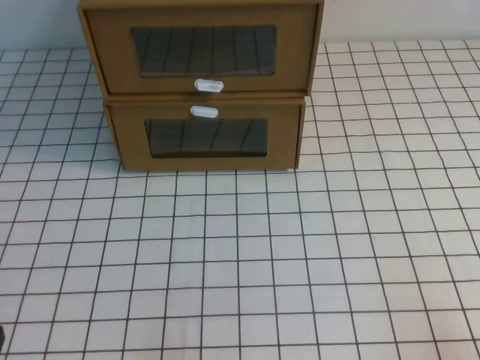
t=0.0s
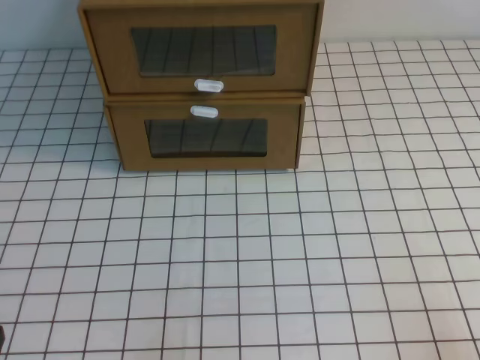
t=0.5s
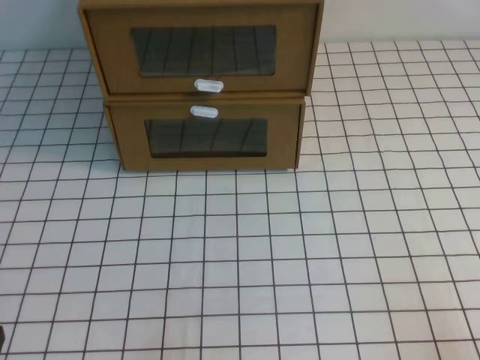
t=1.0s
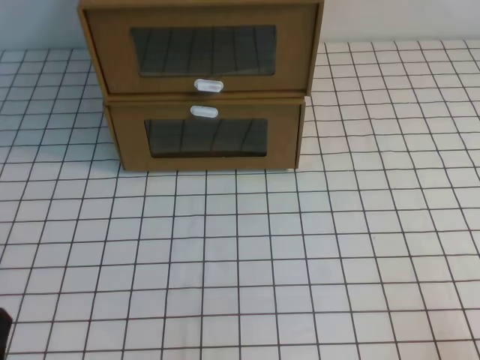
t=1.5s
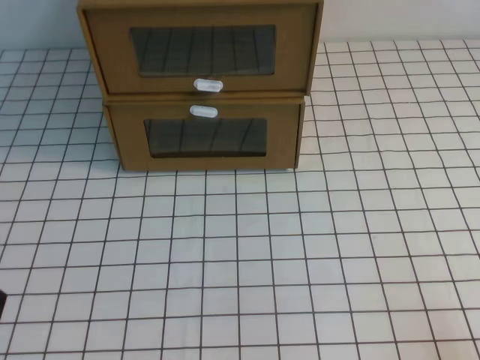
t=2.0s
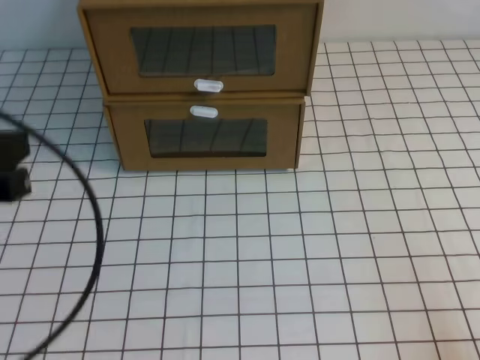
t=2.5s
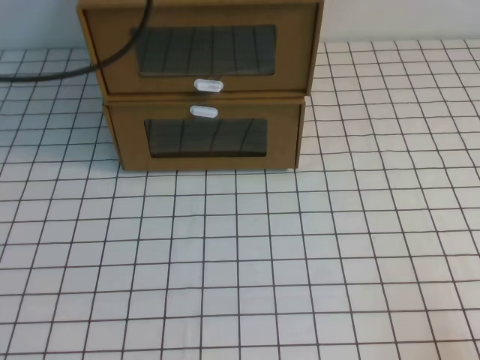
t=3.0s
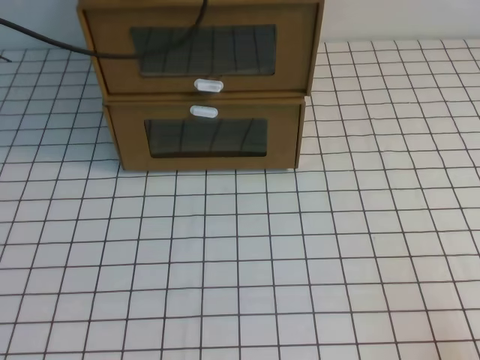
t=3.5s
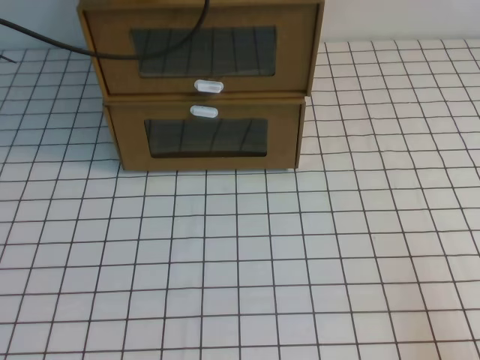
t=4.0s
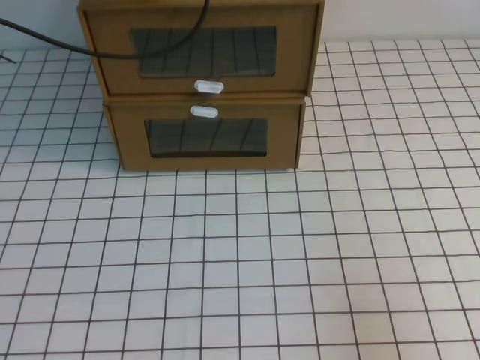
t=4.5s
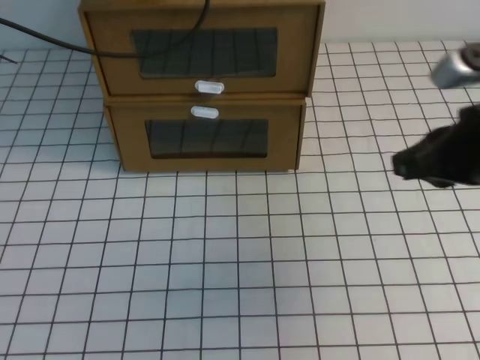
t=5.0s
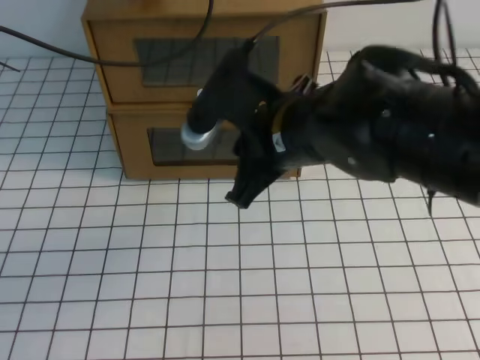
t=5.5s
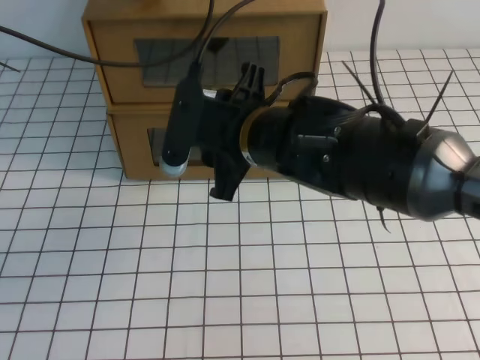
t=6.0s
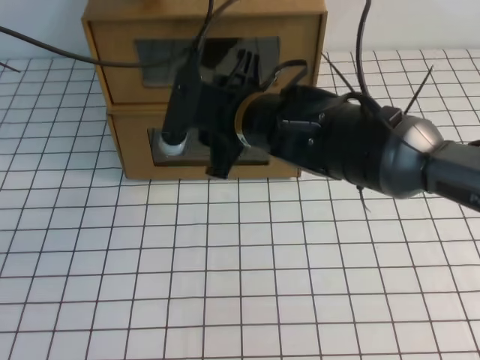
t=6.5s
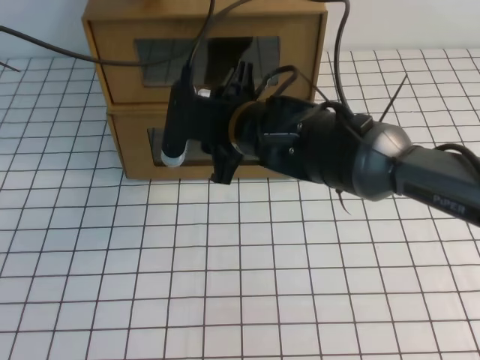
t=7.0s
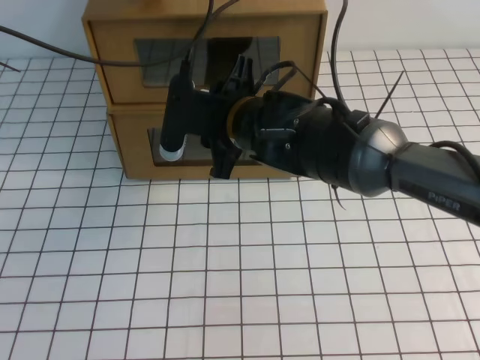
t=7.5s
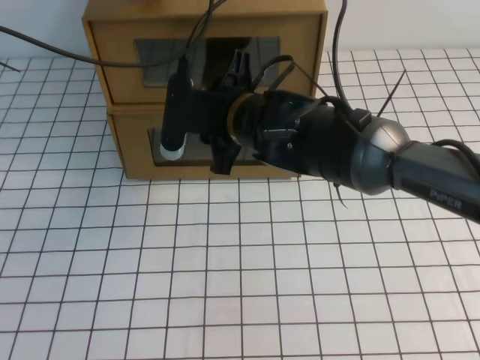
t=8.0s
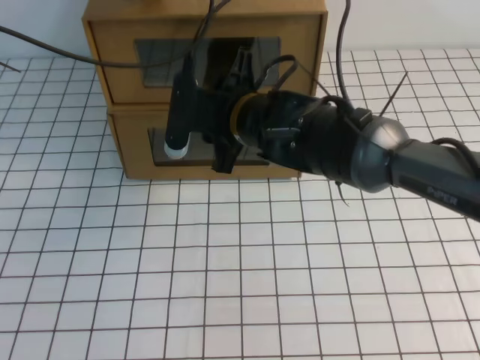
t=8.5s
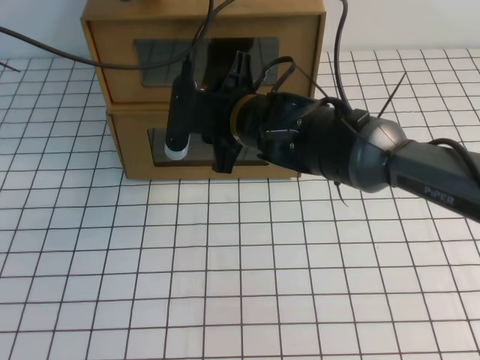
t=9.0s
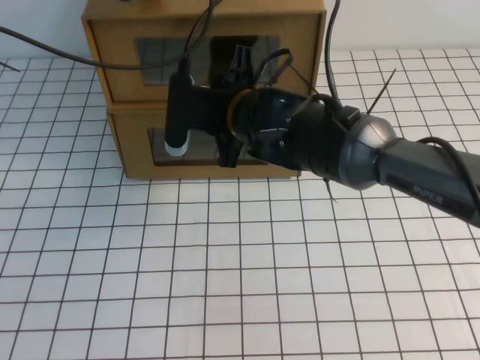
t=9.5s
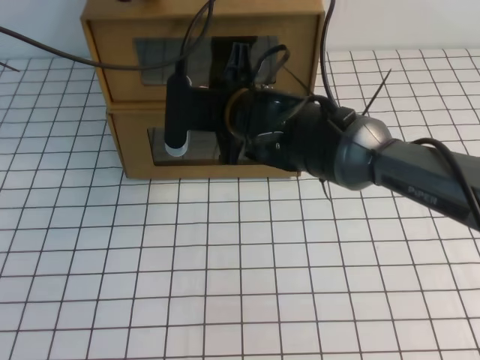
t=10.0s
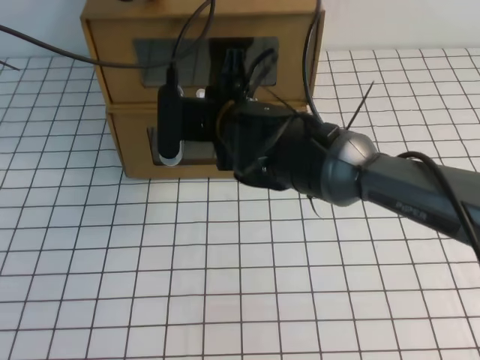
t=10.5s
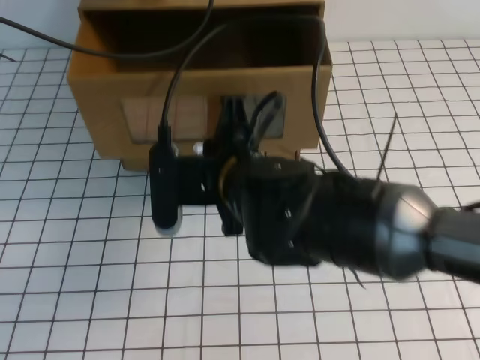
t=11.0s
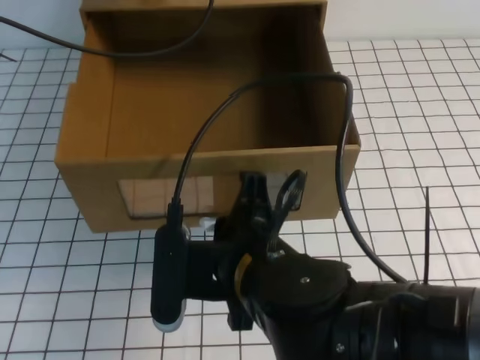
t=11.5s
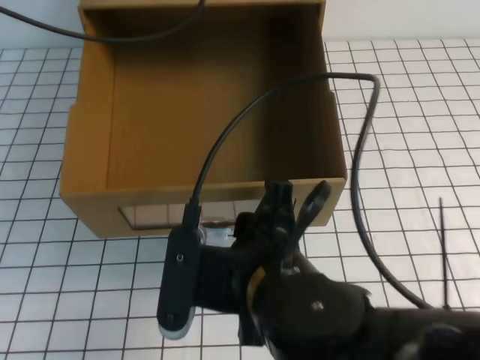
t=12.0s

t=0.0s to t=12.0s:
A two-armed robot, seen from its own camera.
Task of the whole recording: open the shoebox on the white tablecloth.
t=2.0s to t=4.0s: The left gripper goes roughly 40 cm forward and upward.
t=4.0s to t=6.0s: The right gripper moves to the left, forward and upward, roughly 40 cm, and opens its fingers.
t=6.0s to t=8.0s: The right gripper goes about 5 cm forward.
t=8.0s to t=10.0s: The right gripper closes up.
t=10.0s to t=12.0s: The right gripper heads backward, covering some 20 cm, and opens up.

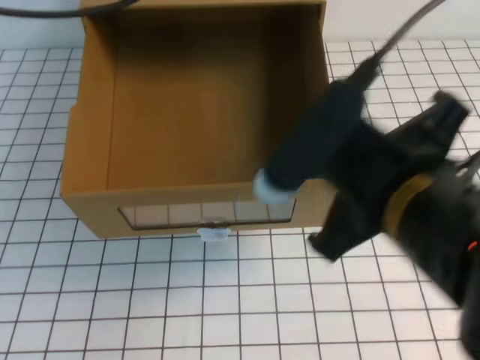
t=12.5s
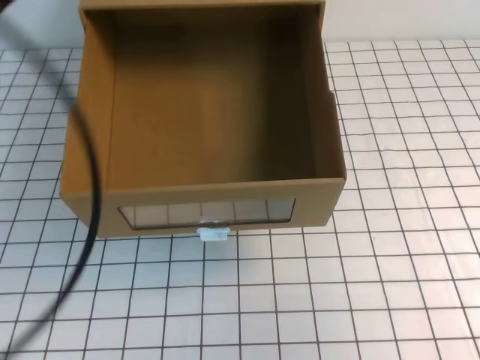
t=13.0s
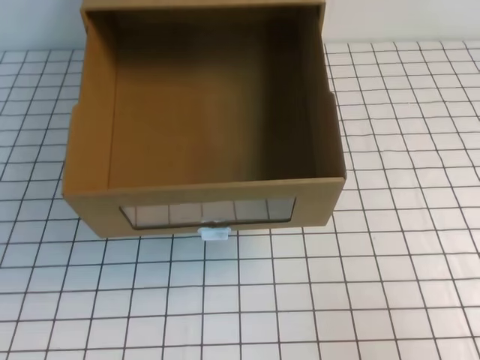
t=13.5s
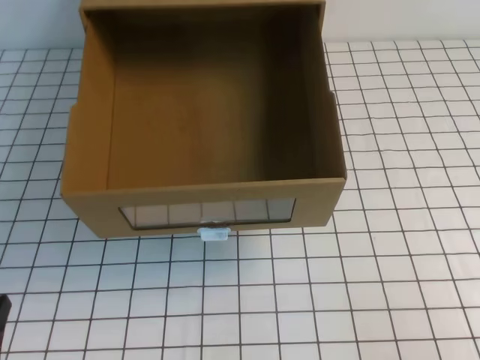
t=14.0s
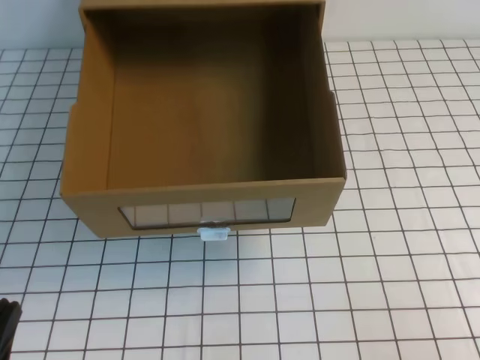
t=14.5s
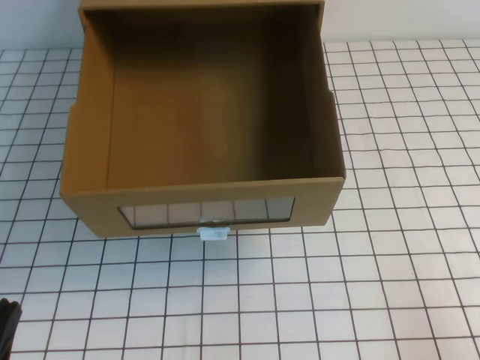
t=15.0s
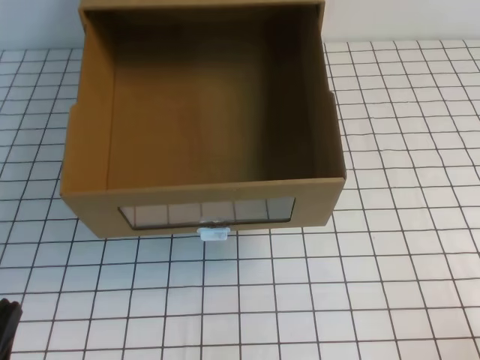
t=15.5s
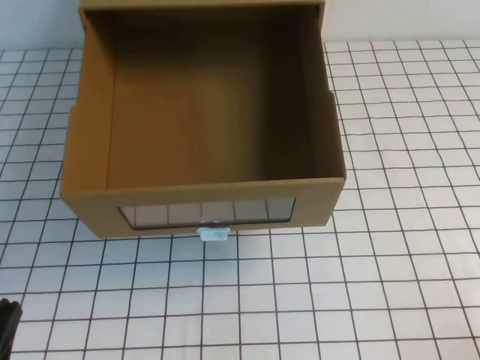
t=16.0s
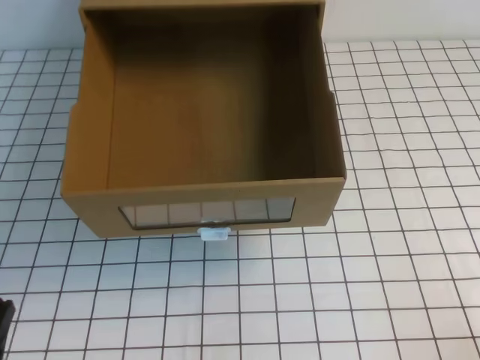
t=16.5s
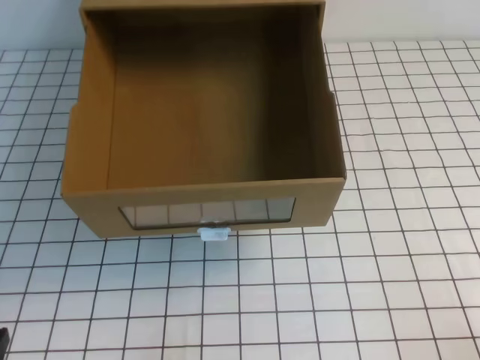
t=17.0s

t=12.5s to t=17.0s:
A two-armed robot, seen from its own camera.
Task of the whole recording: open the shoebox on the white tablecloth.
Step, t=12.5s to t=17.0s: Open the shoe box.
t=12.5s to t=14.5s: The left gripper is displaced downward and backward by about 40 cm, while the right gripper travels to the right by roughly 25 cm.

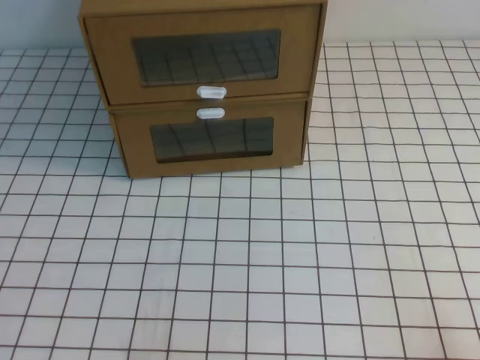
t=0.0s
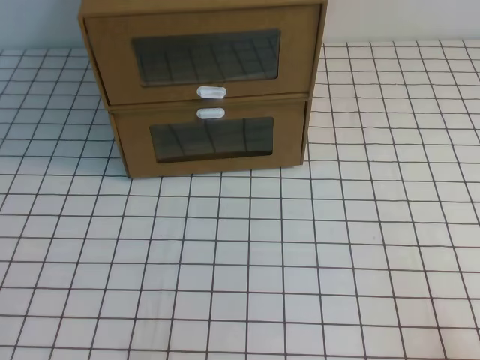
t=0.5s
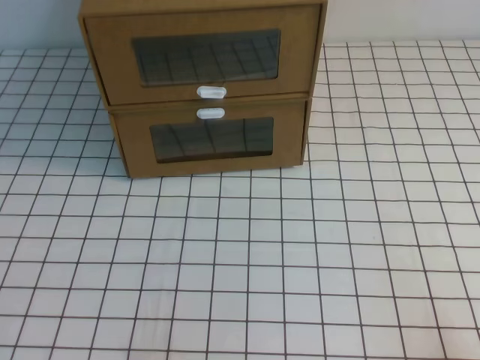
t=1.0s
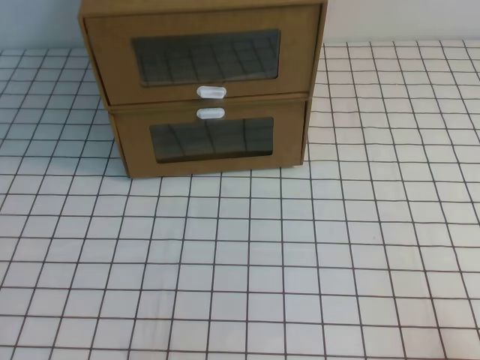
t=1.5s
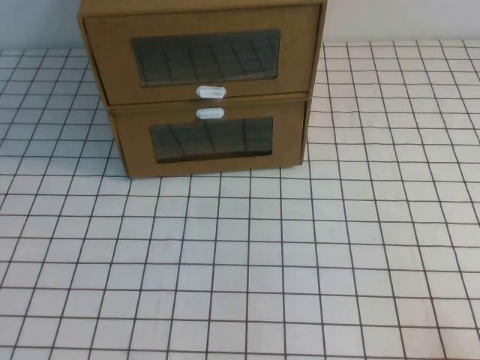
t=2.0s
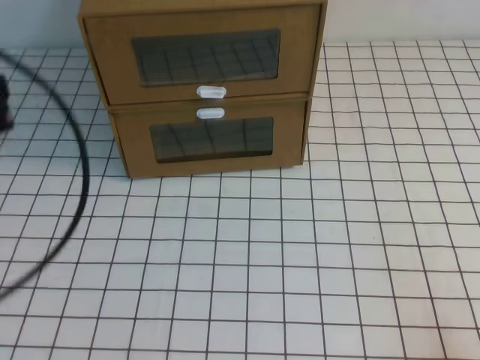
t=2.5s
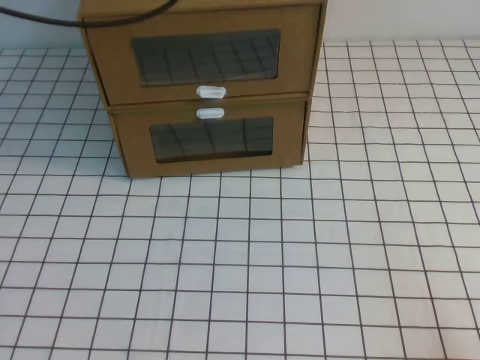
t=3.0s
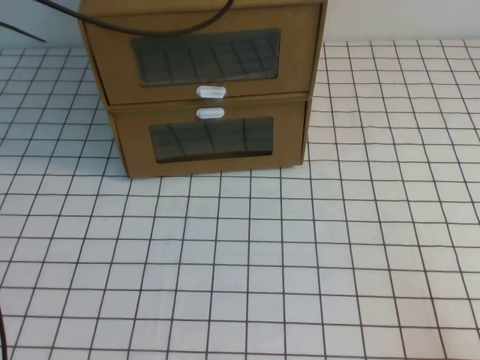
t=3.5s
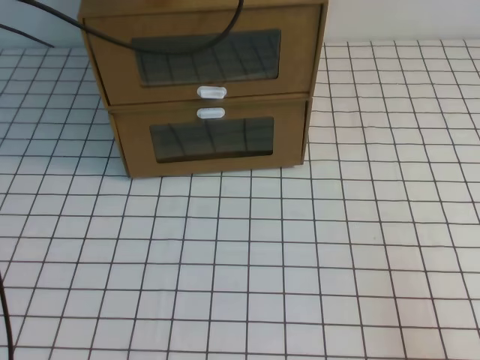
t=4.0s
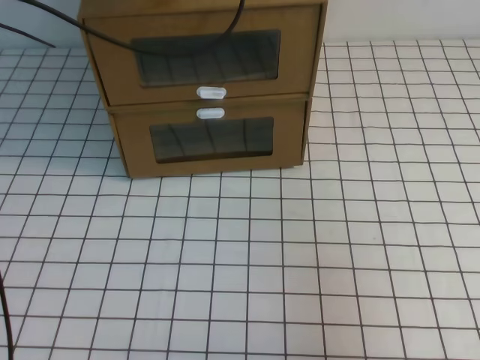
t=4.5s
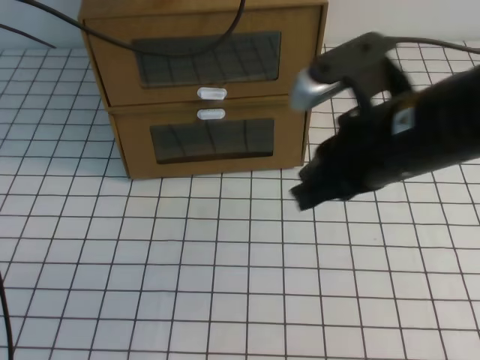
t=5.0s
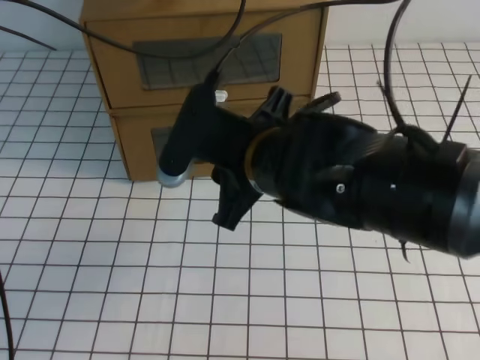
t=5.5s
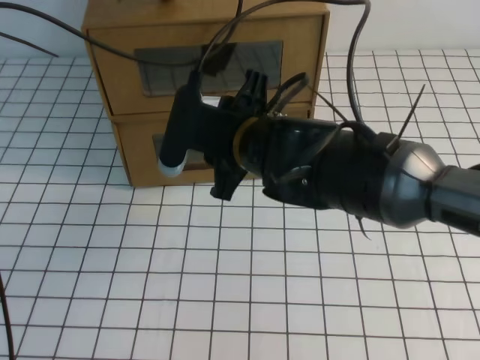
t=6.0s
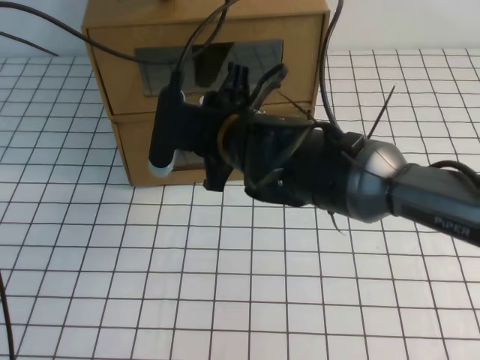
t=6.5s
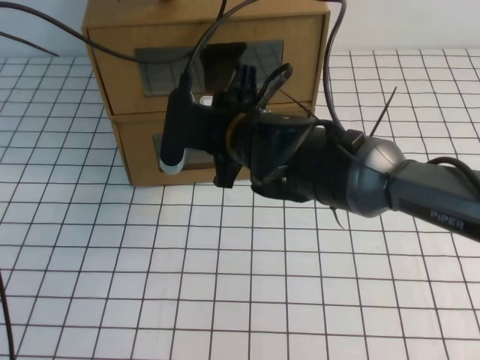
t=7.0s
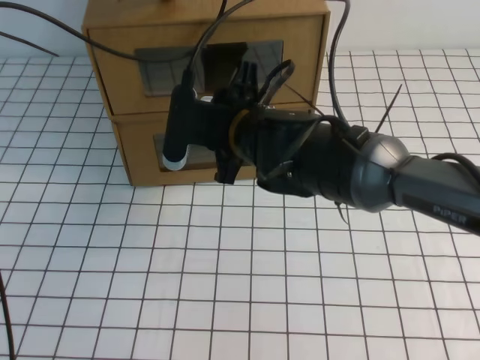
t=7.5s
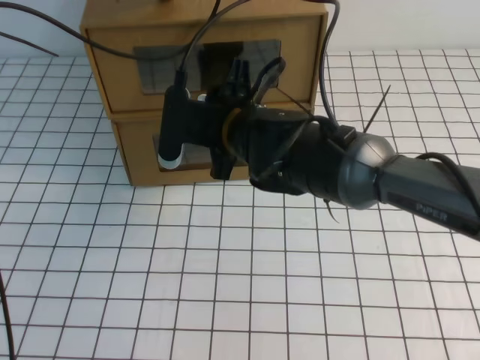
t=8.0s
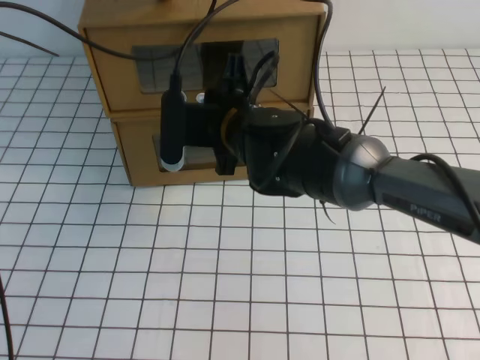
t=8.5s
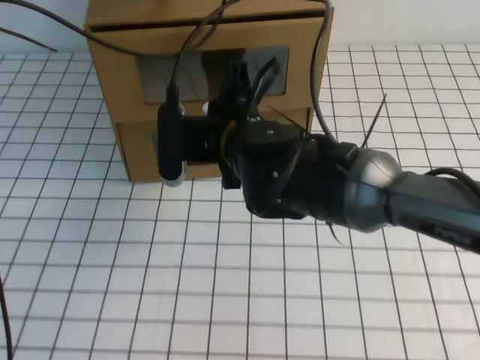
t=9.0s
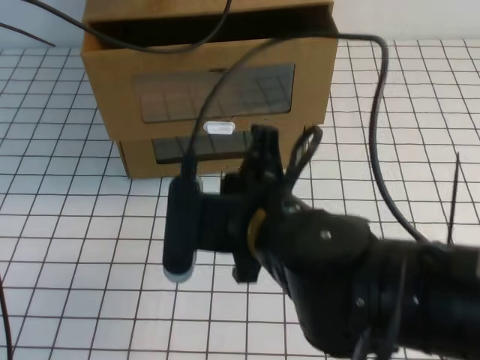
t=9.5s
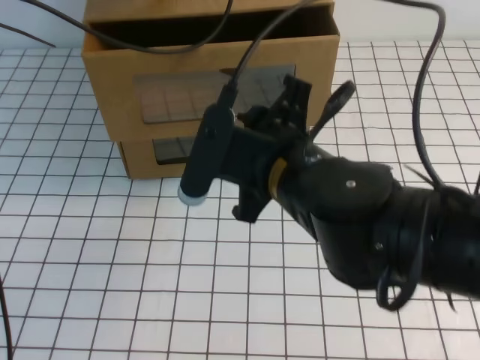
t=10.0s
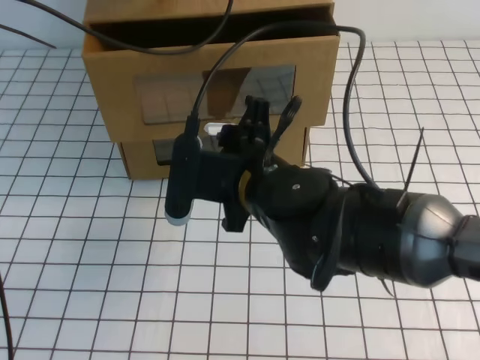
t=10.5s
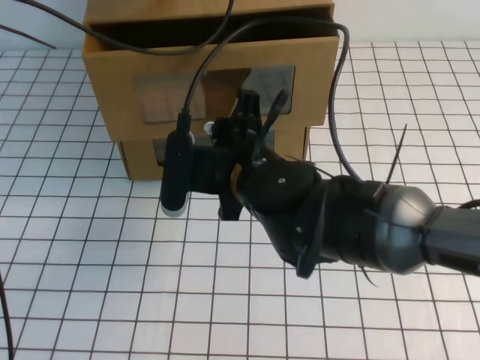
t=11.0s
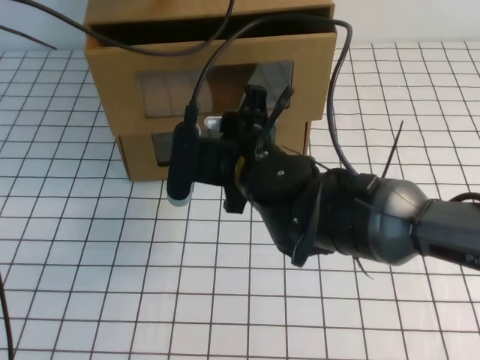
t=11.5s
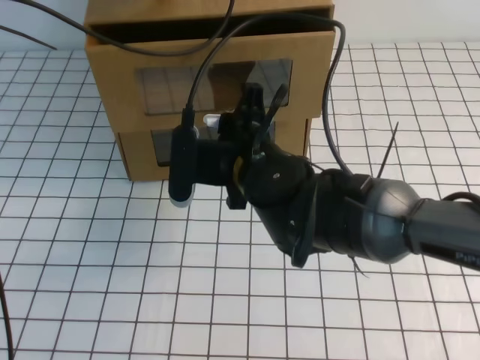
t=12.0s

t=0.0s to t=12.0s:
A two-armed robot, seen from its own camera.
Task of the whole recording: open the shoebox on the white tablecloth.
t=2.0s to t=4.0s: The left gripper goes roughly 40 cm forward and upward.
t=4.0s to t=6.0s: The right gripper moves to the left and forward, about 40 cm, and opens its fingers.
t=6.0s to t=8.0s: The right gripper changes place by approximately 5 cm.
t=8.0s to t=10.0s: The right gripper travels backward by some 10 cm, and closes, then reopens.
t=10.0s to t=12.0s: The right gripper moves forward, approximately 5 cm.
